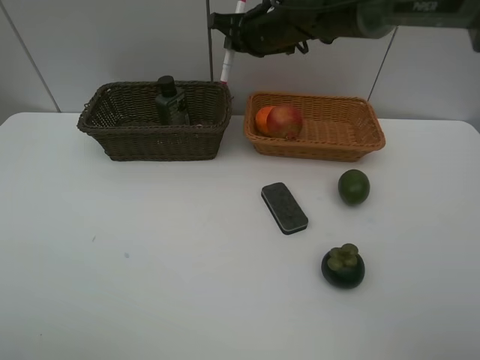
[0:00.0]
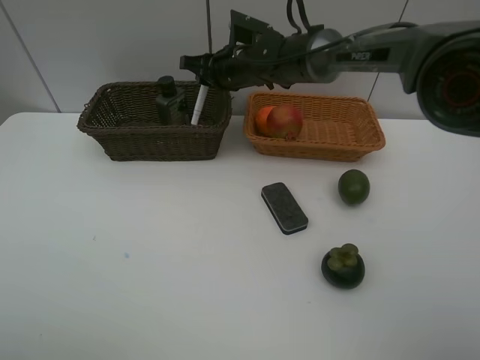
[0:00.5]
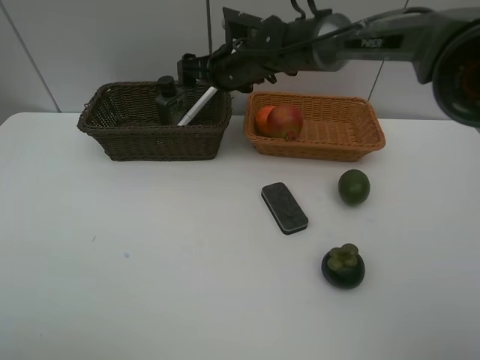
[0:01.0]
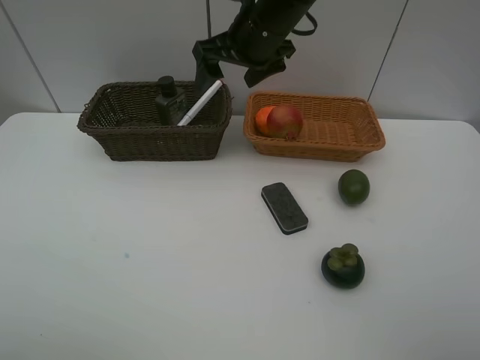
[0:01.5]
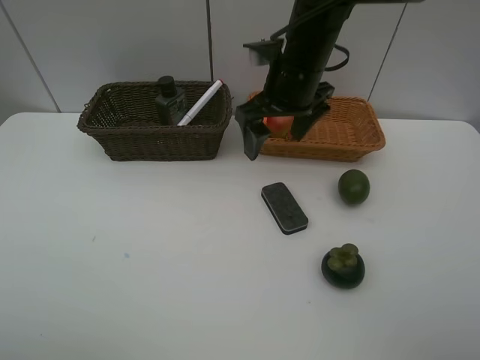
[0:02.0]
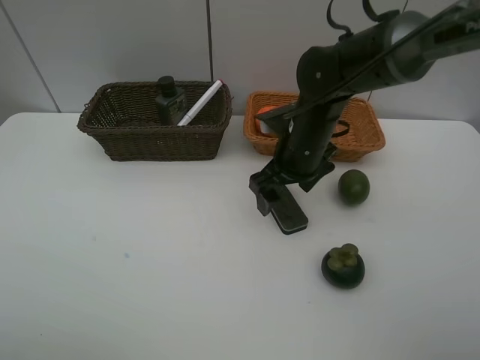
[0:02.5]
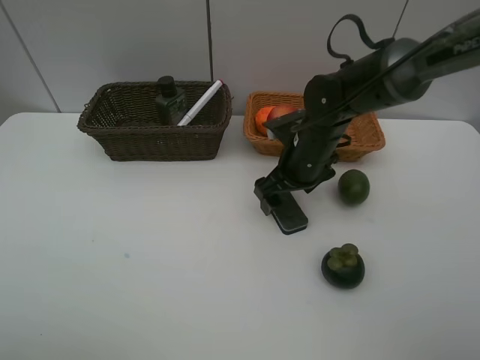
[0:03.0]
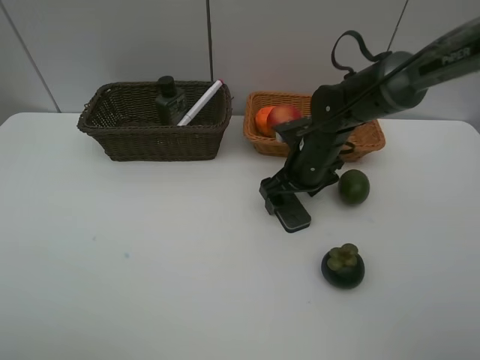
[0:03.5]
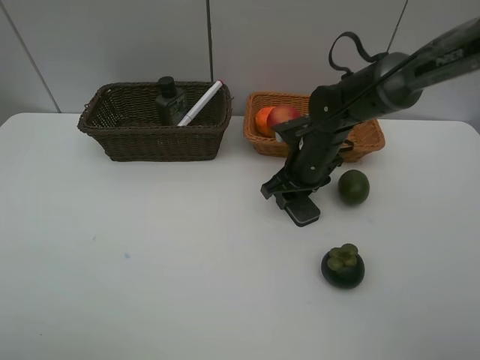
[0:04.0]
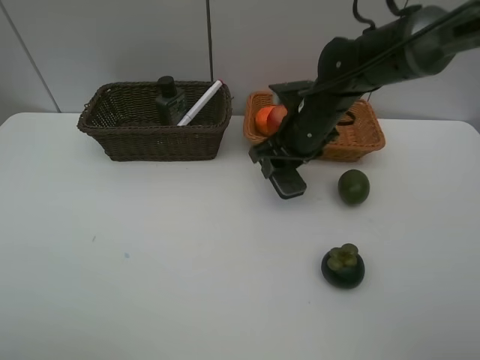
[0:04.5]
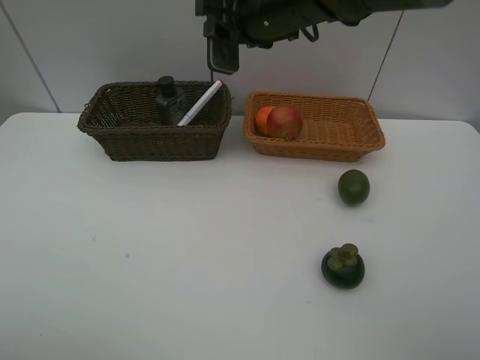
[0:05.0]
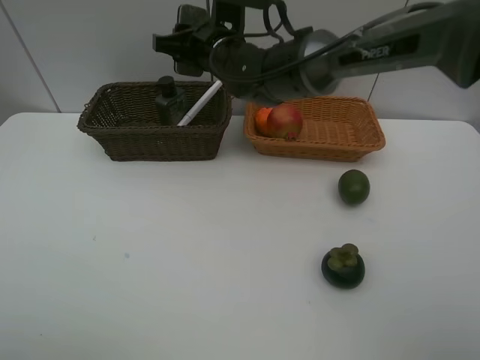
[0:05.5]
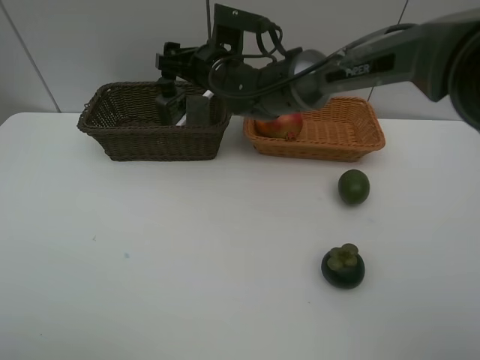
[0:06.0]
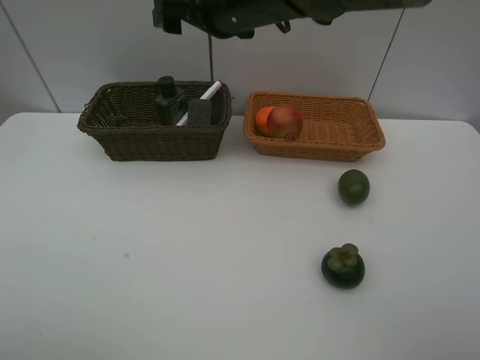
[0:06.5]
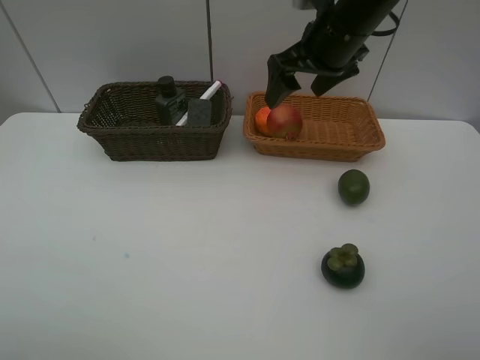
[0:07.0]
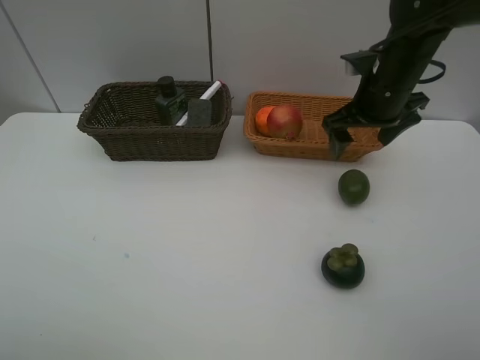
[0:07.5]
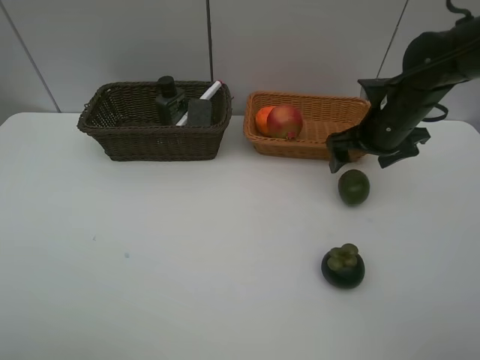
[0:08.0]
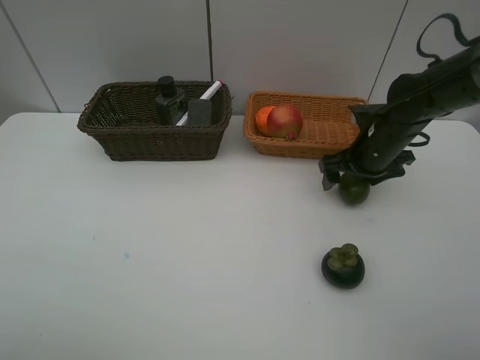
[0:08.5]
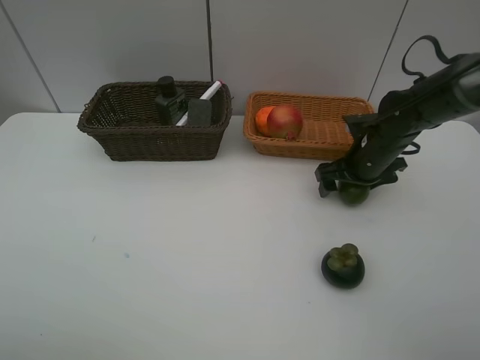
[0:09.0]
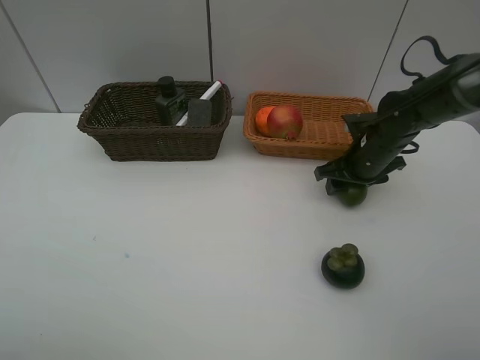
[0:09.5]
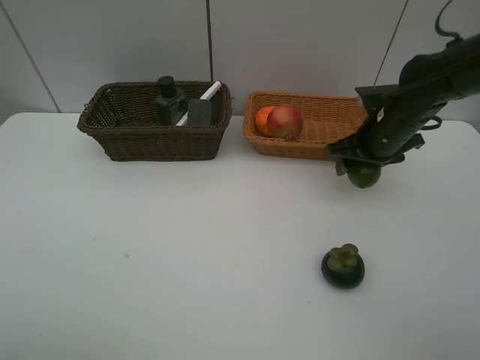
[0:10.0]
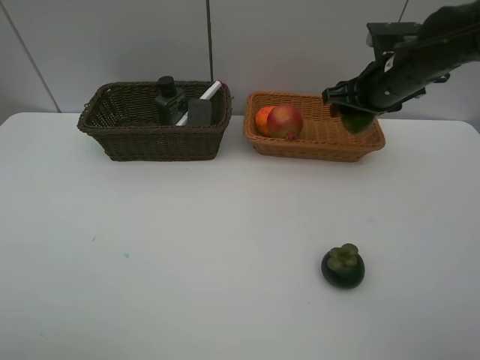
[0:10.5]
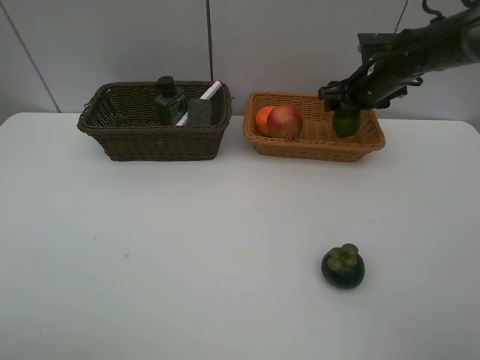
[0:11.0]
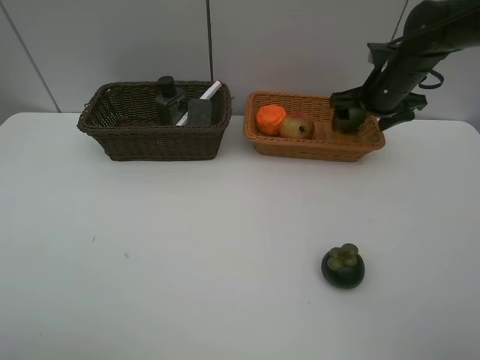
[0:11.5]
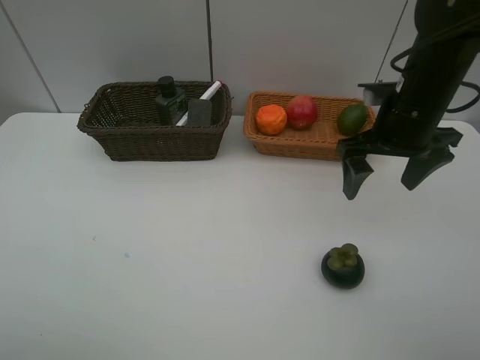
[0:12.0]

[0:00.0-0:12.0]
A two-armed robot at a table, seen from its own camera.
Task of the whole recording: Place multiple objects separately in different baskets.
Step, 0:01.5 to 0:04.0: Pick up blackboard eraser with right gripper.
Step, 0:04.5 to 0:06.0: Place the blackboard eraser in the dark basket with right gripper.
Step, 0:06.5 to 0:09.5: Pick up the lime with right gripper.
Step, 0:10.0 to 0:11.0: Place the lime in the light basket with right gripper.
0:00.0 to 0:02.0: The right gripper shifts approximately 15 cm backward, and opens its fingers.
0:02.0 to 0:04.0: The right gripper travels downward by some 15 cm, and closes up.
0:04.0 to 0:06.0: The right gripper goes approximately 20 cm to the left and upward, and opens.
0:06.0 to 0:08.0: The right gripper moves to the right, about 25 cm.
0:08.0 to 0:10.0: The right gripper closes.
0:10.0 to 0:12.0: The right gripper travels backward and upward by roughly 10 cm, and opens up.

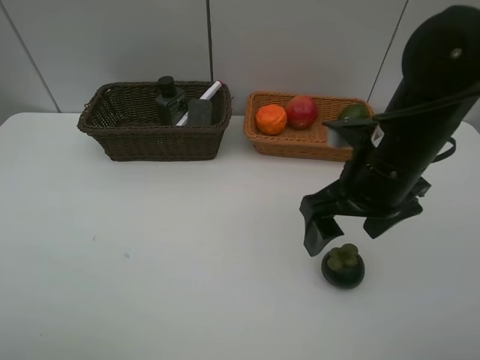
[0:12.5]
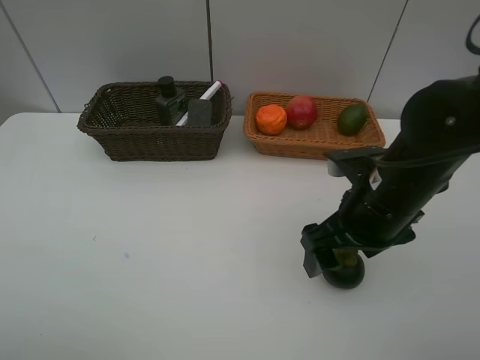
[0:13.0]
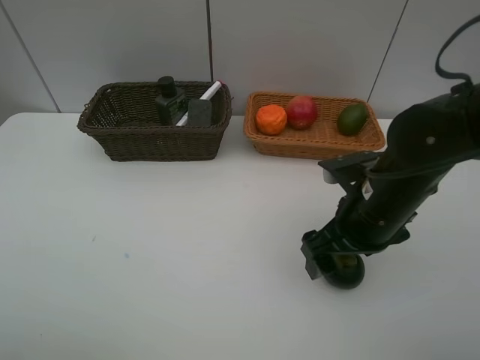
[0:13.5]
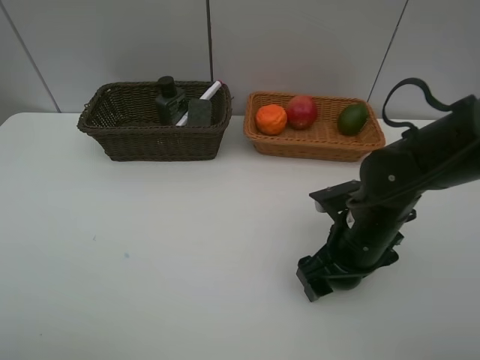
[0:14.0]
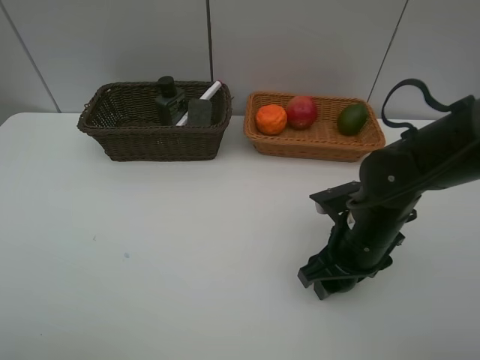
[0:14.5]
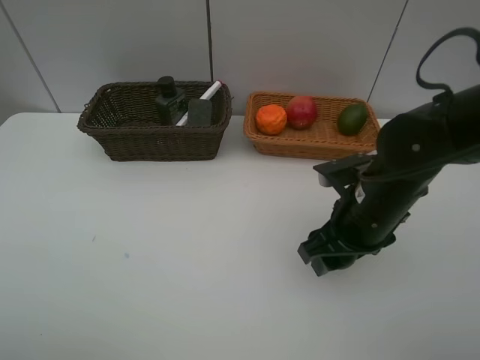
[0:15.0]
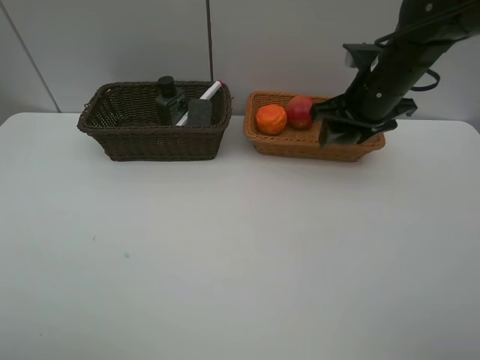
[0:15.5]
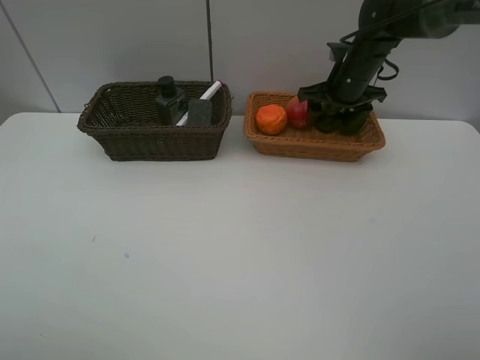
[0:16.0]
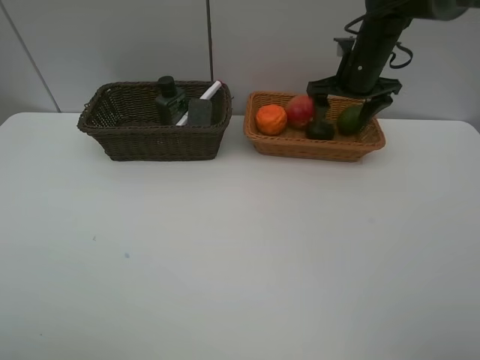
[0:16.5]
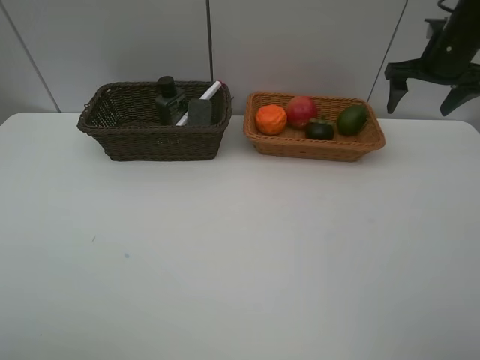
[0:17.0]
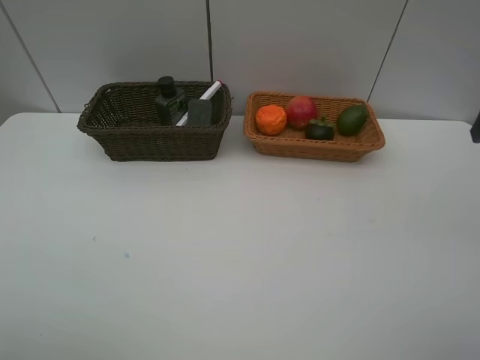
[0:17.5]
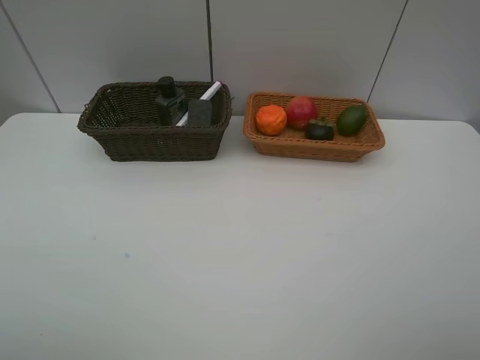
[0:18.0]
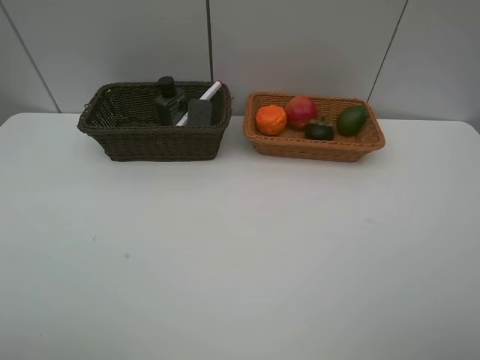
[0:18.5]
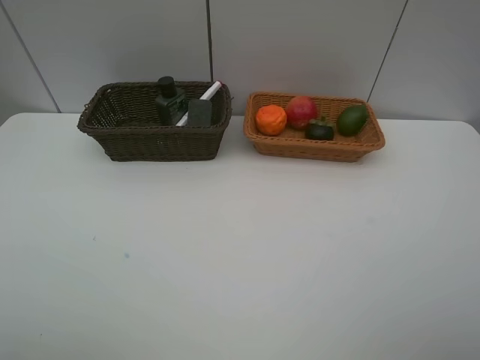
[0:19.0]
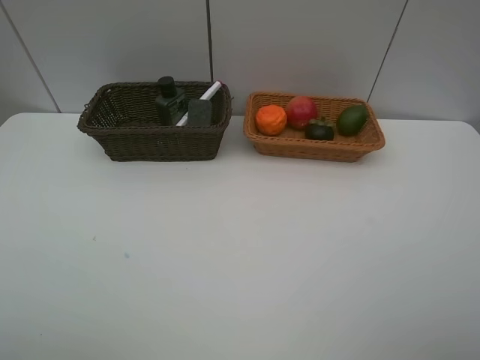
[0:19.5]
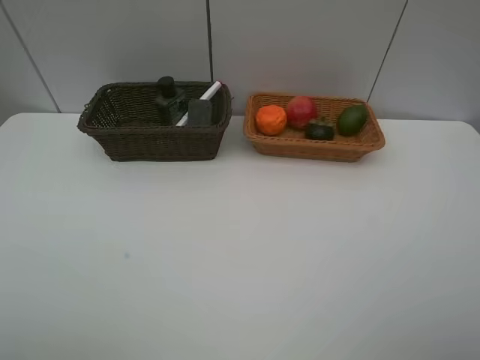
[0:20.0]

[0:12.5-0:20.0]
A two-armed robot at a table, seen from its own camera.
Task of the whole recording: Place multiple objects separately in different baskets.
Step, 0:12.5 to 0:14.5: Pick up the mangosteen with right gripper.
Step, 0:15.0 to 0:16.0: Place the mangosteen in the light basket with right gripper.
0:12.5 to 0:14.5: The right gripper heads downward, covering approximately 10 cm, and closes up.
0:14.5 to 0:16.5: The right gripper is displaced forward and upward by roughly 25 cm, and opens.
0:16.5 to 0:18.0: The right gripper travels backward by about 50 cm.

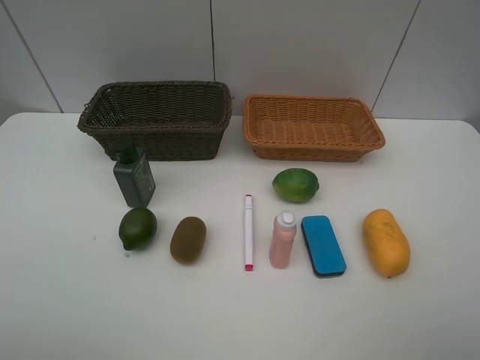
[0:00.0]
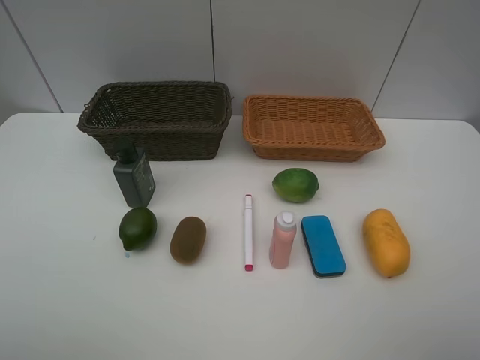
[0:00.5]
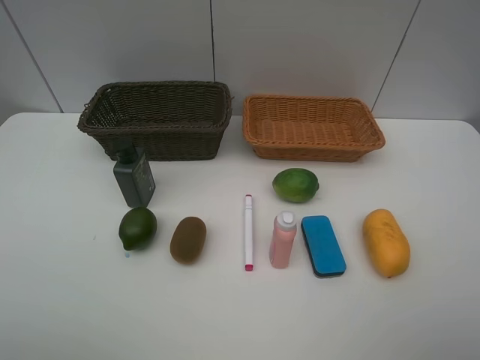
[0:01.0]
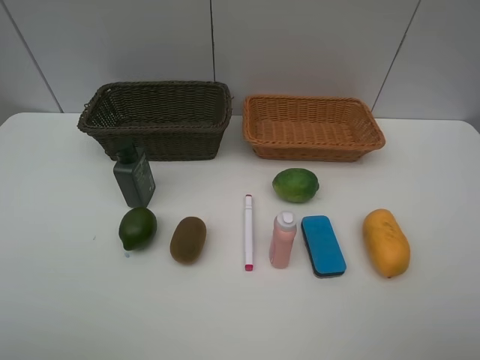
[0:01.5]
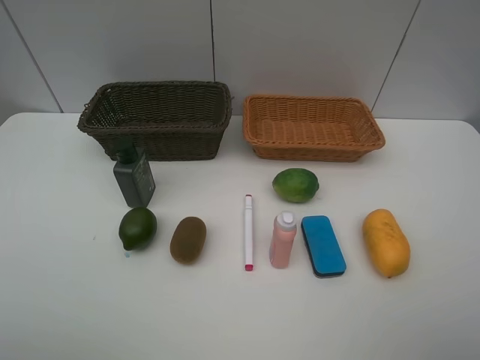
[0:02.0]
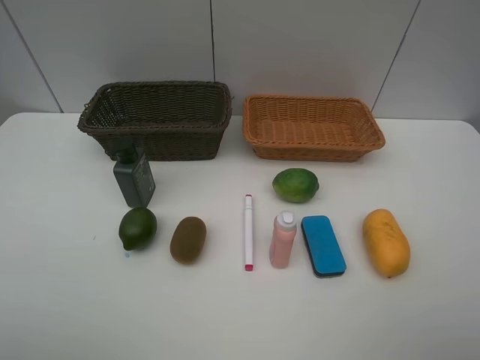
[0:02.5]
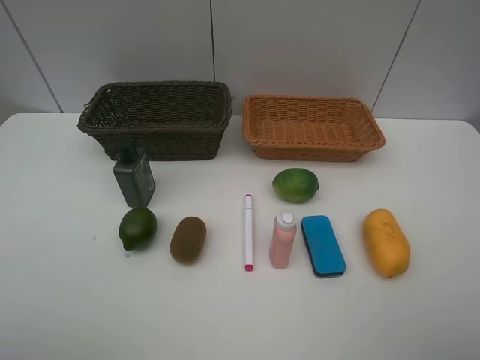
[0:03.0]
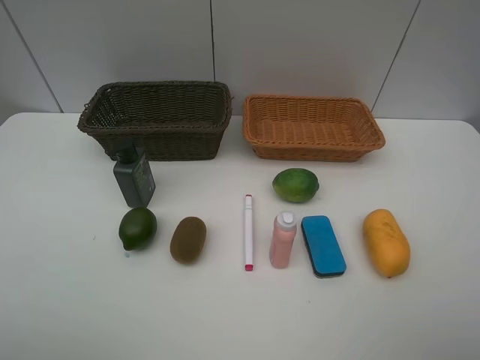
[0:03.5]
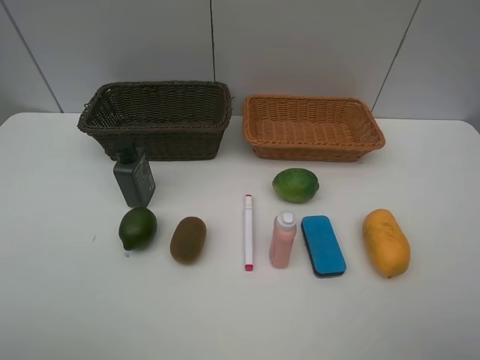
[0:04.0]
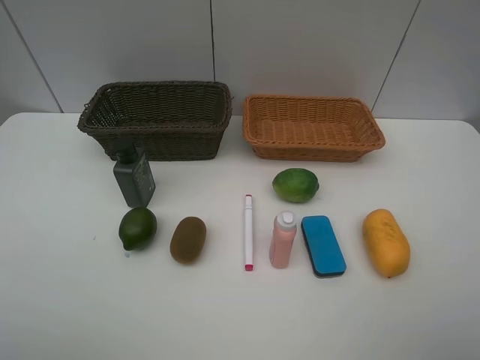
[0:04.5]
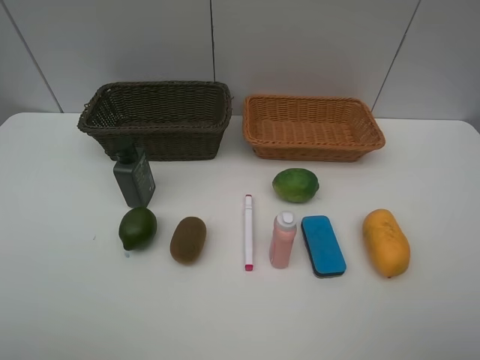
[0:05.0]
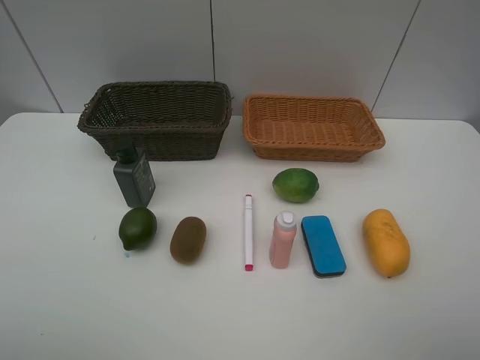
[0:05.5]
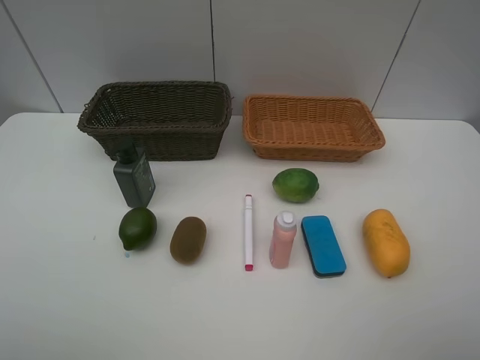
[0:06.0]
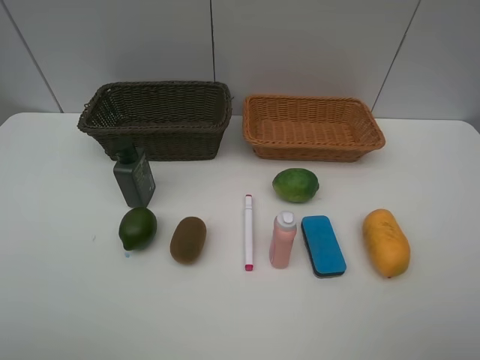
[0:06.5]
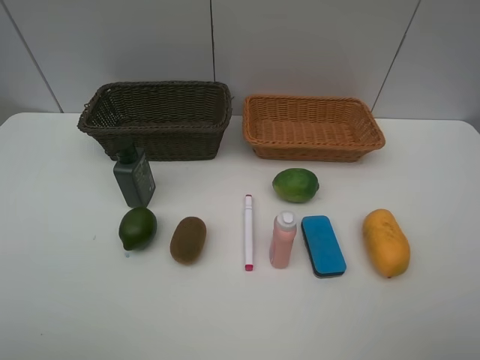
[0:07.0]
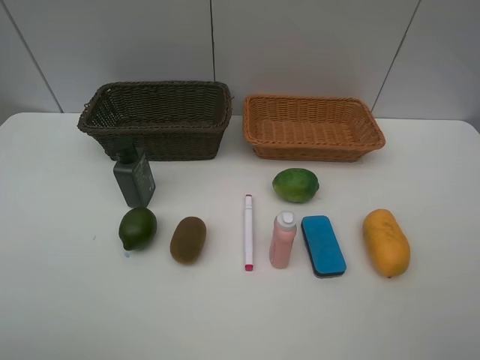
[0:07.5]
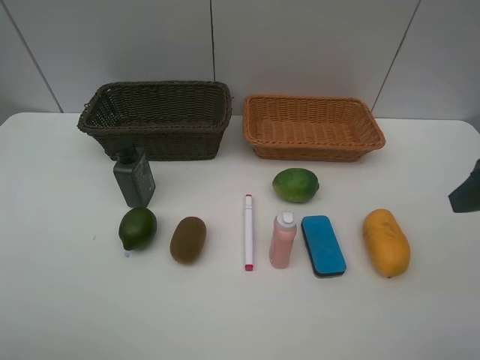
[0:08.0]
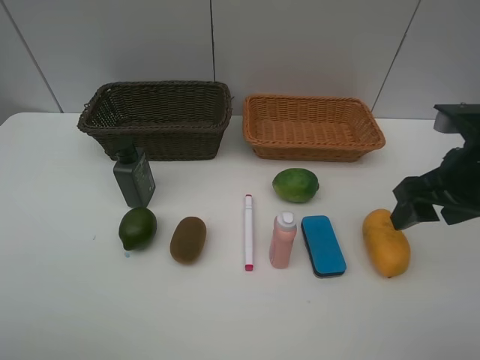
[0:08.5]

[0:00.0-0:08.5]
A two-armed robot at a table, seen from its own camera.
Task of the whole recording: Place multiple objects separately in different baskets.
0:00.0 to 0:06.5: Both grippers stay put.
0:06.5 to 0:08.5: The right gripper heads forward, covering approximately 20 cm.
